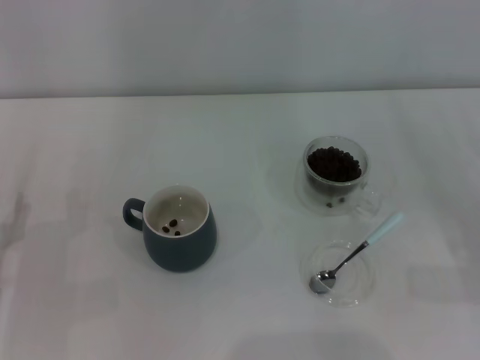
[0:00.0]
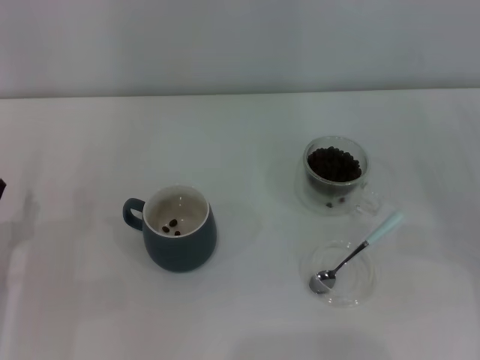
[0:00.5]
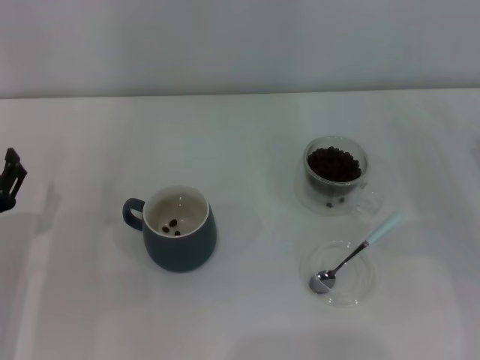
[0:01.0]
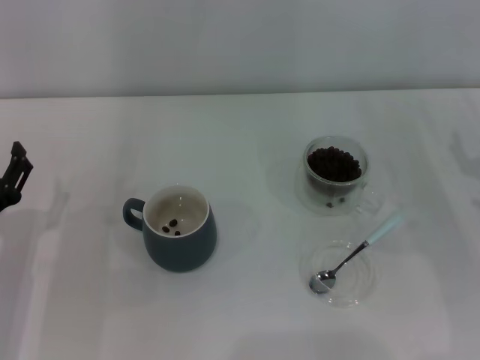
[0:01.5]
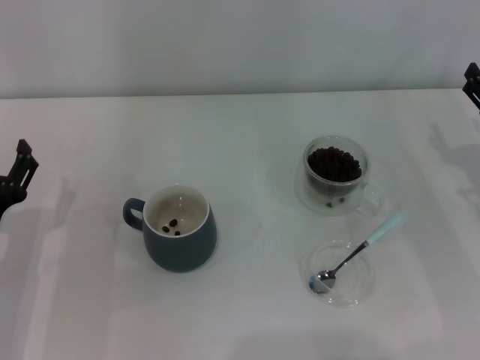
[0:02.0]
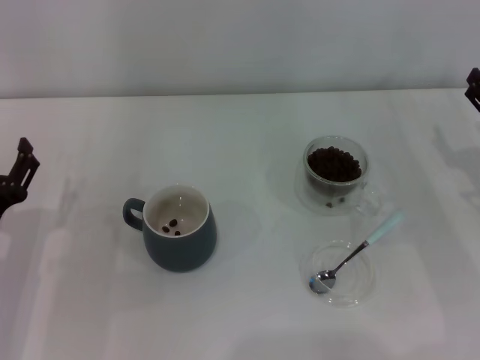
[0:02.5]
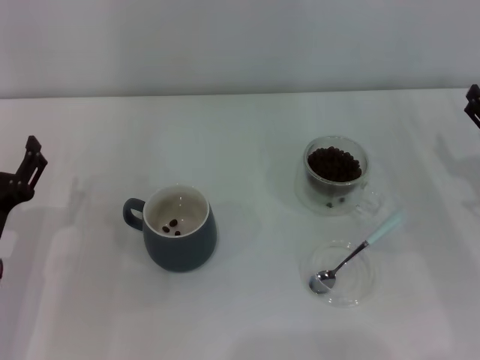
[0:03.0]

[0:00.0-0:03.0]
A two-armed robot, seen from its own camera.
Task of the whole recording: Use a blue spoon to take out the coffee beans from the glass and pour them into the gray cup.
0:01.5 to 0:03.0: The grippers make only small movements.
